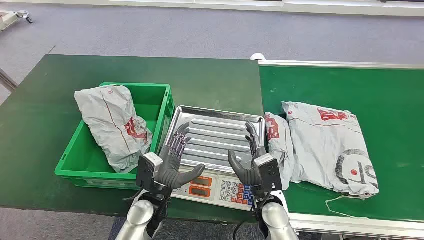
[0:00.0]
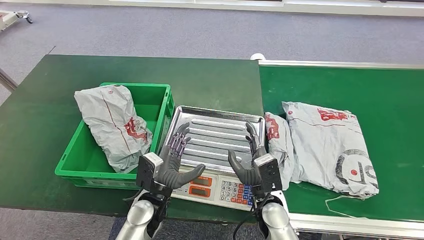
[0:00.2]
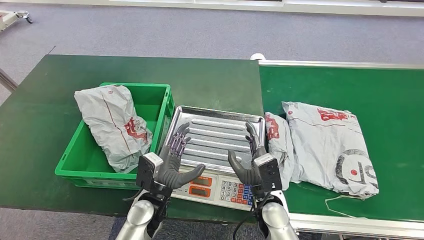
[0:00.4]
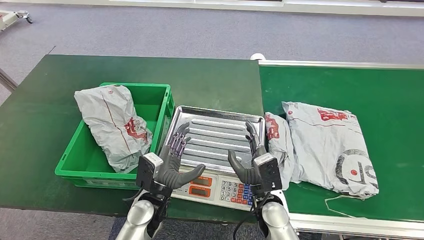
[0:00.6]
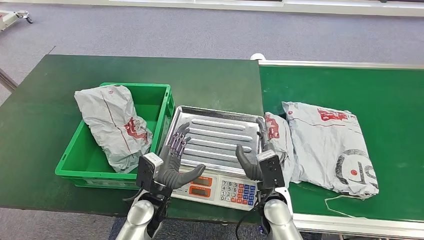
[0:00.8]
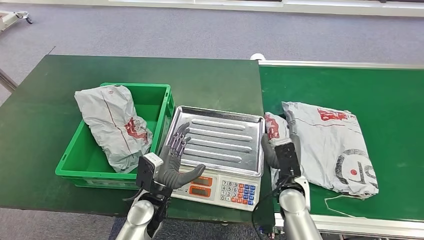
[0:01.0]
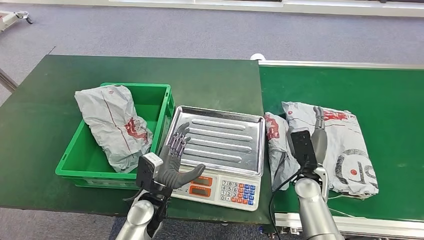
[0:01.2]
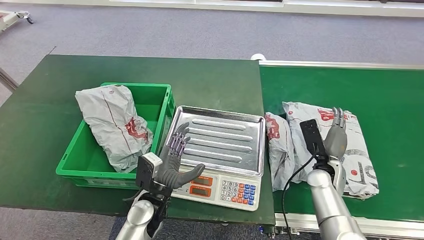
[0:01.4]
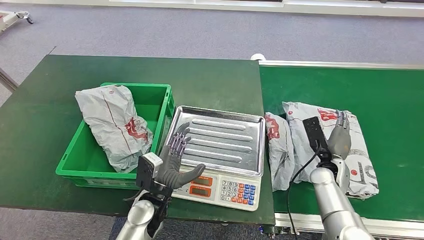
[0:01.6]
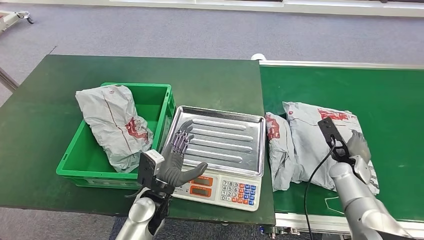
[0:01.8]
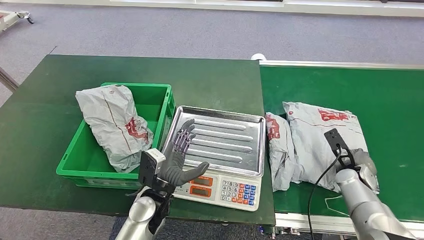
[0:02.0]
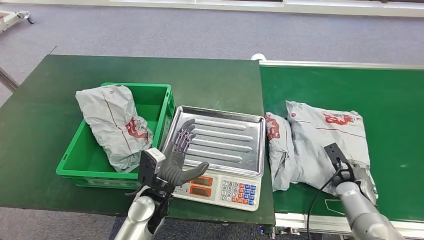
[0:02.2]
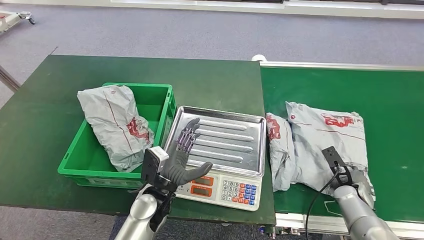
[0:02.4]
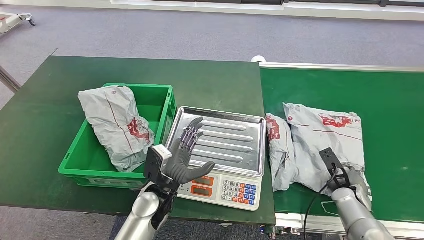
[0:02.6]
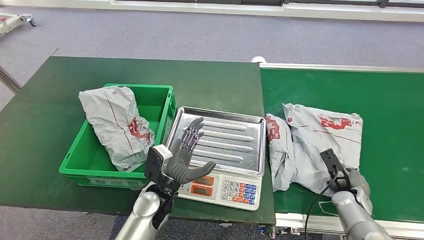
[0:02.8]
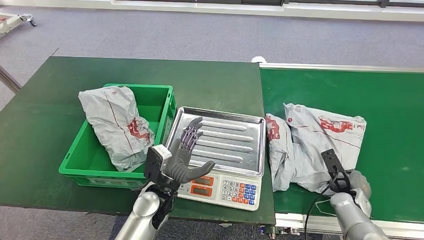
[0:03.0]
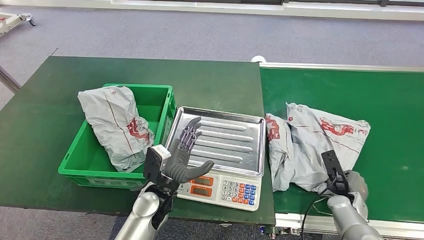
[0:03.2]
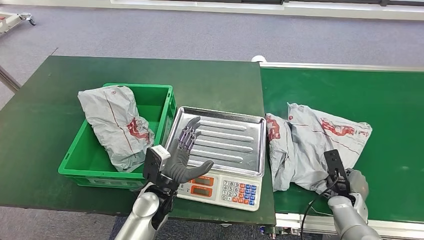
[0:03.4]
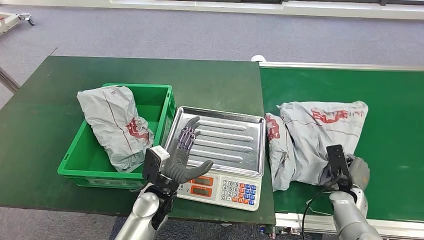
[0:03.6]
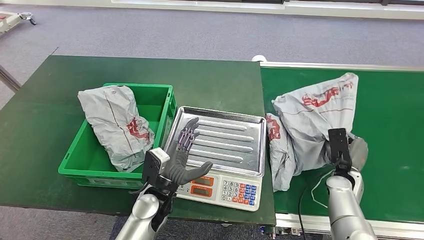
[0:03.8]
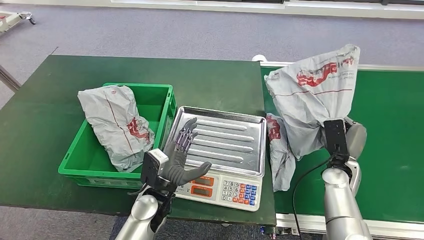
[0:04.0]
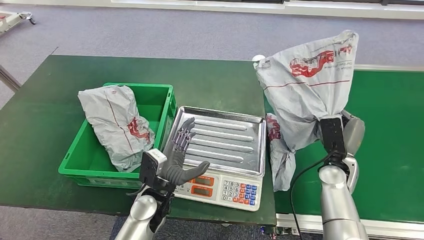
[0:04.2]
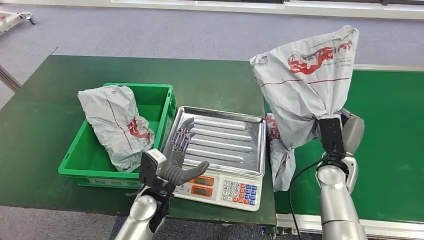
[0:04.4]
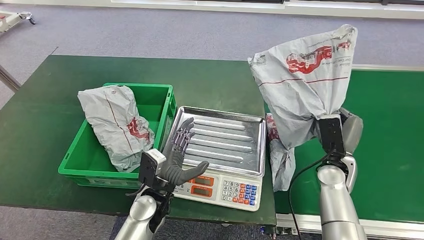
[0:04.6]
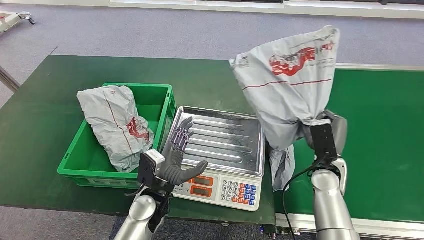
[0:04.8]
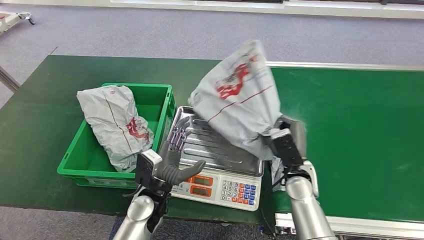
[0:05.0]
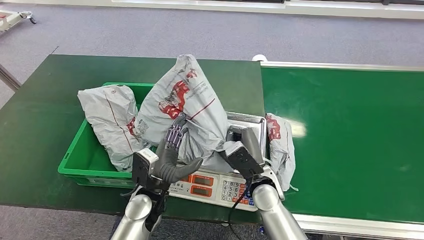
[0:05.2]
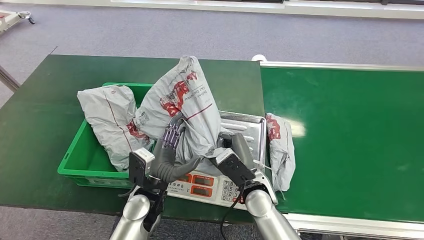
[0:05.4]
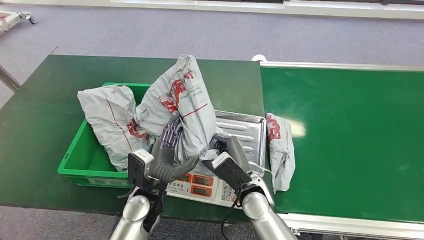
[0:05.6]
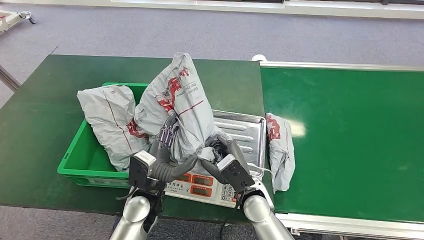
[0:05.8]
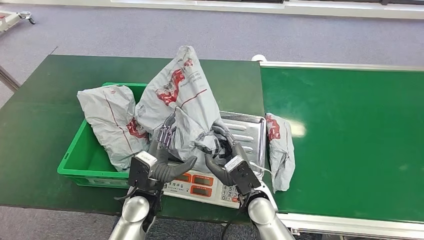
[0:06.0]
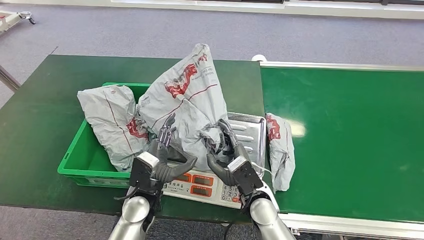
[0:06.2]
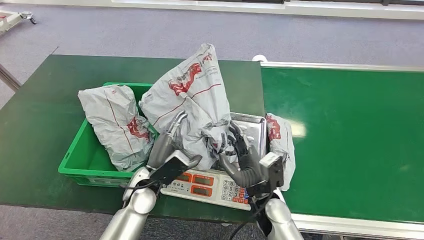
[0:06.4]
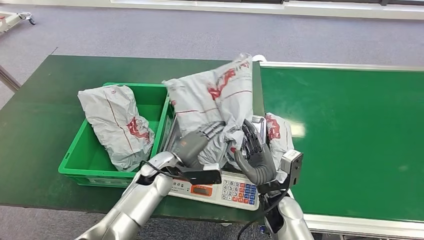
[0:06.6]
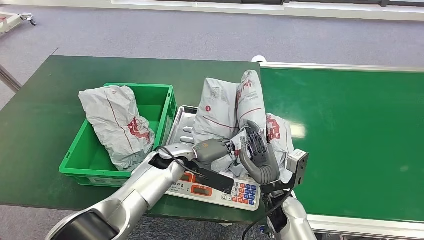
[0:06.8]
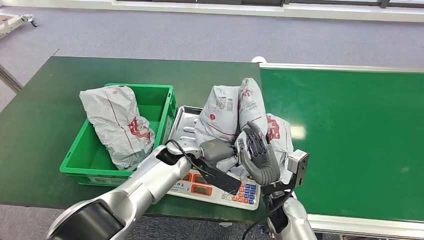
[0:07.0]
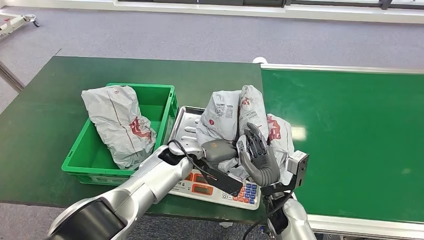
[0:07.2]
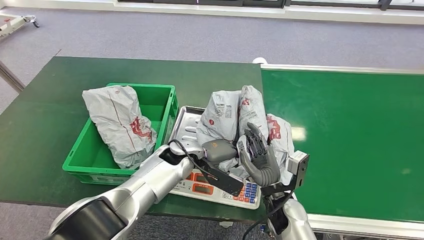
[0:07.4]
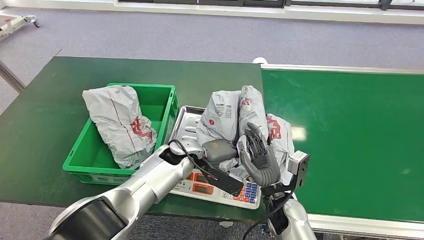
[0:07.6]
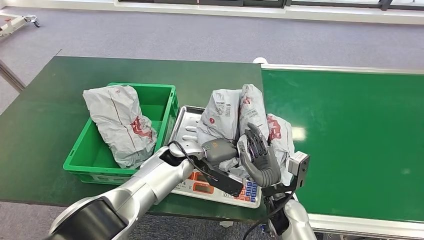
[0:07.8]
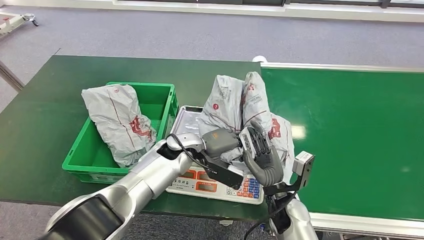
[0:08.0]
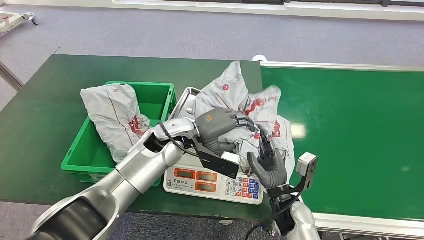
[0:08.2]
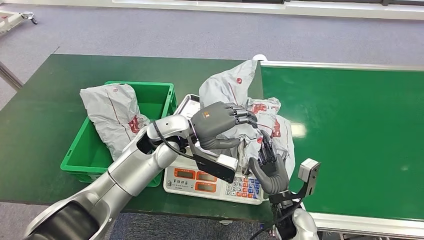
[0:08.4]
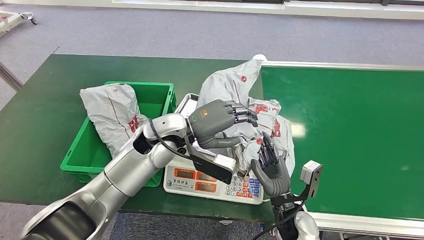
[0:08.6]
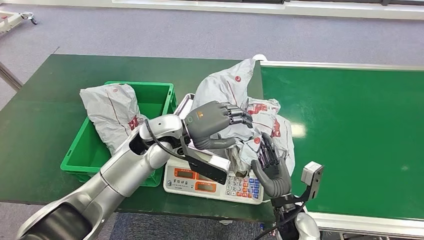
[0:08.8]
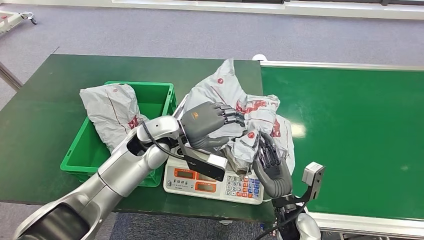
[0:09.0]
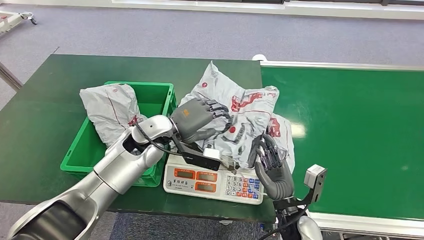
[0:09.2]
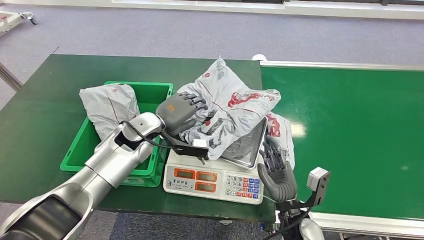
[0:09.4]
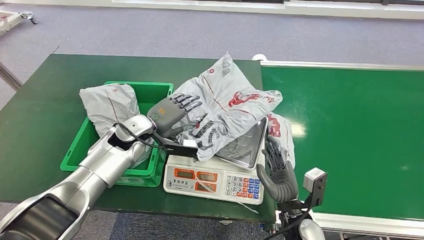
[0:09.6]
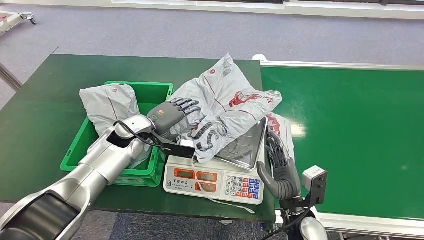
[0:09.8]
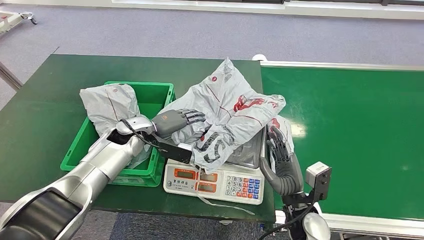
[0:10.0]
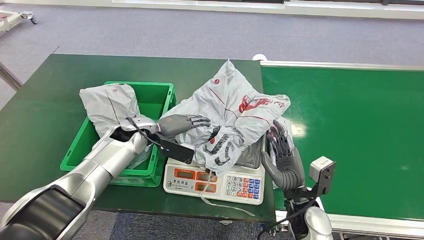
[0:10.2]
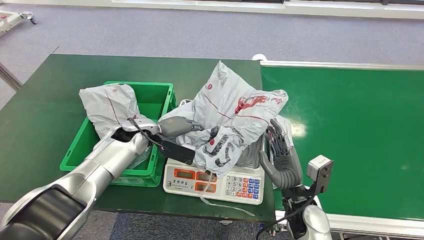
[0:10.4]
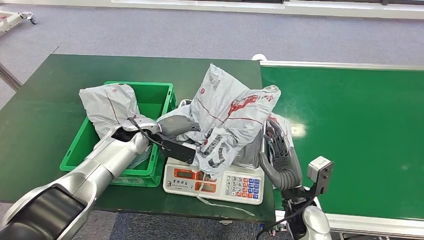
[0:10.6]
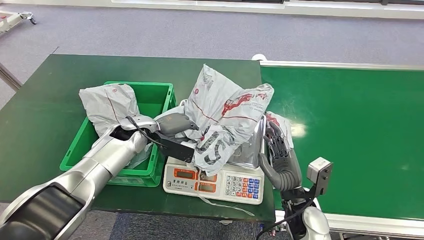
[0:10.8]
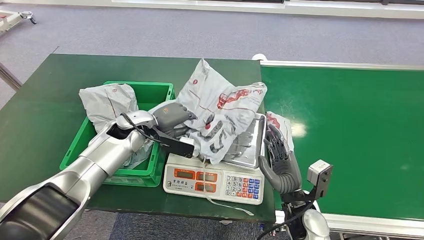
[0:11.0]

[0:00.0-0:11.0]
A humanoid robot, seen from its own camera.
Step, 0:00.0 to 0:04.6: Pick up the package from the conveyor belt.
Step, 0:04.8 to 0:10.2: Place the package onto the inbound machine.

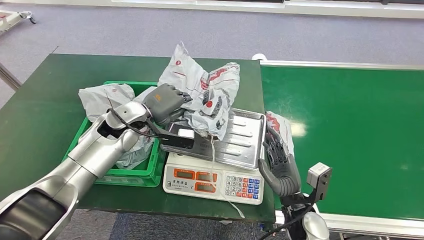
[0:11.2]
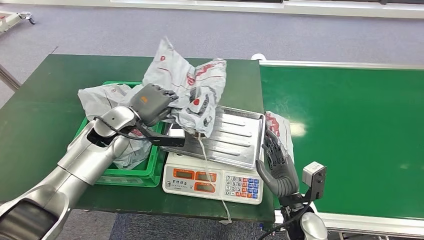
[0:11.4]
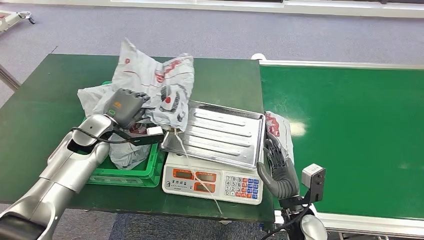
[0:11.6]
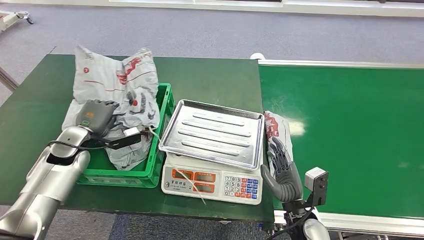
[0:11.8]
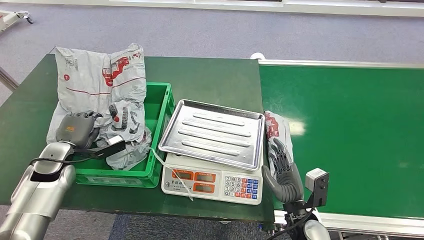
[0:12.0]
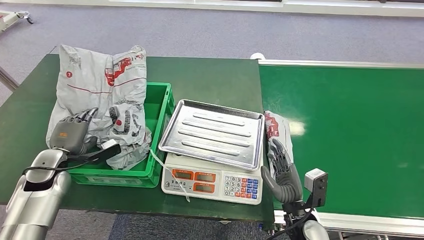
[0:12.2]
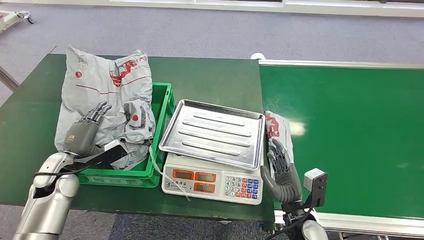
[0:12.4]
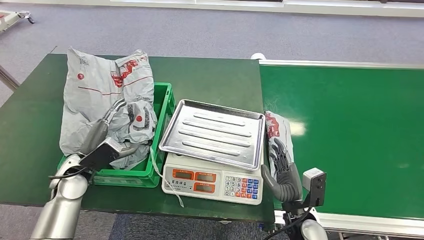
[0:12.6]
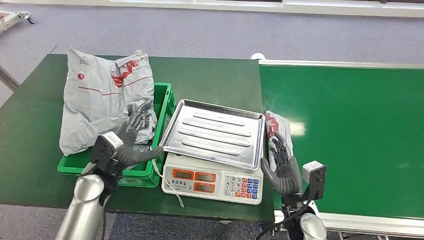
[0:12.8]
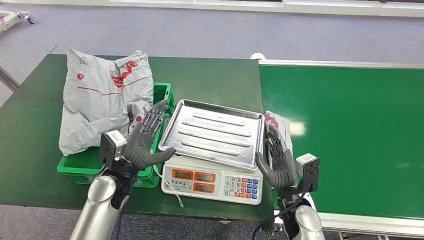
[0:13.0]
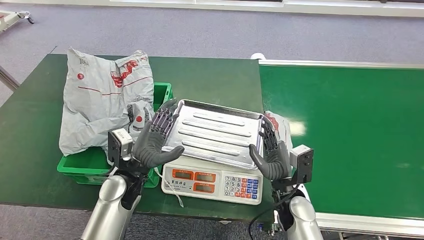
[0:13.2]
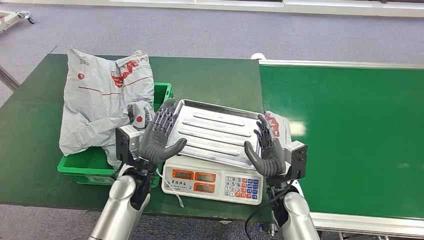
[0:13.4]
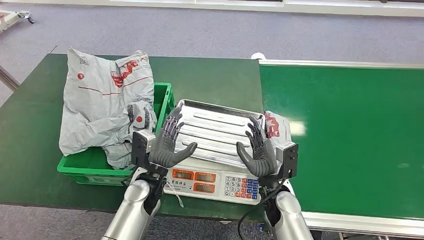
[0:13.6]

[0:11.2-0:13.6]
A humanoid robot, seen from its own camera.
Step, 0:12.0 to 0:13.6: Place the package into the parcel locker.
0:12.4 to 0:13.6: The right hand heads to the left and forward, covering roughly 10 cm; the left hand shifts approximately 25 cm to the right.
